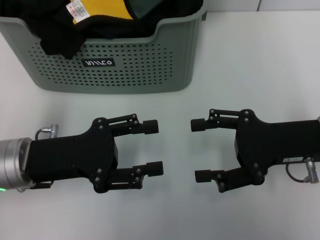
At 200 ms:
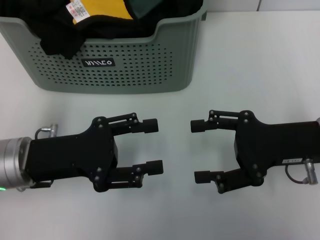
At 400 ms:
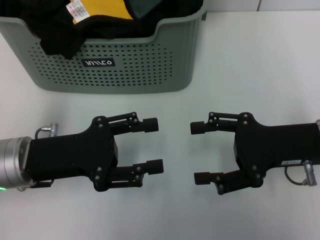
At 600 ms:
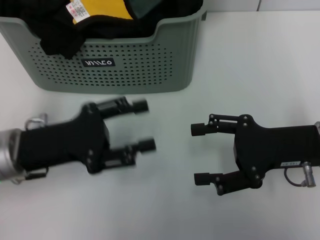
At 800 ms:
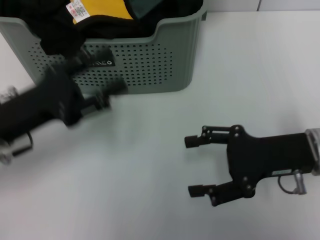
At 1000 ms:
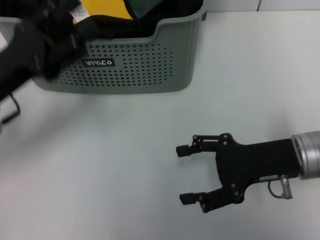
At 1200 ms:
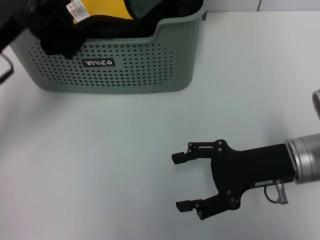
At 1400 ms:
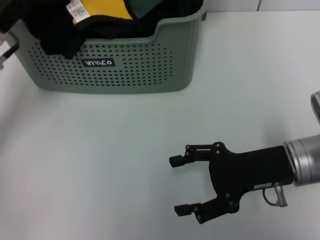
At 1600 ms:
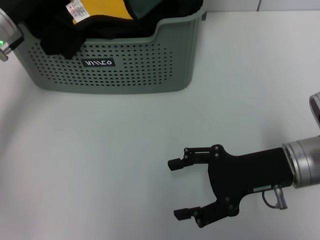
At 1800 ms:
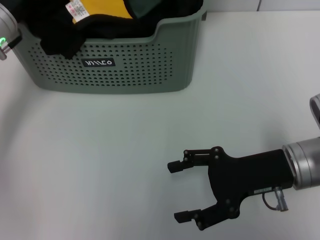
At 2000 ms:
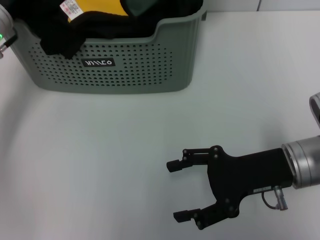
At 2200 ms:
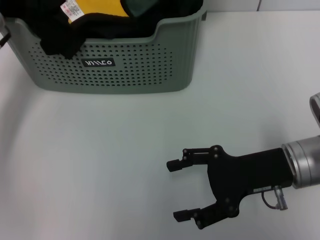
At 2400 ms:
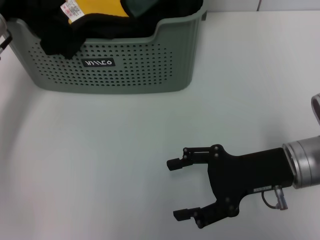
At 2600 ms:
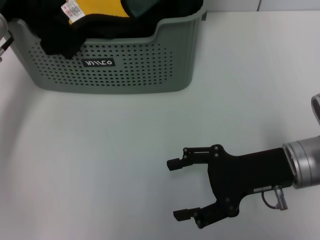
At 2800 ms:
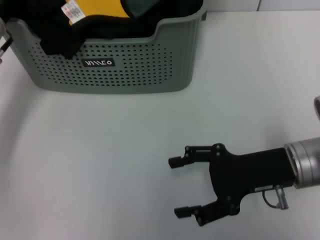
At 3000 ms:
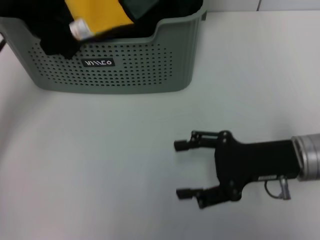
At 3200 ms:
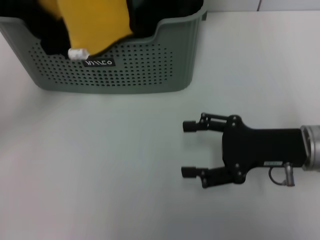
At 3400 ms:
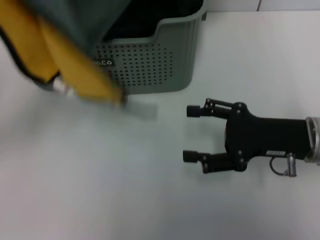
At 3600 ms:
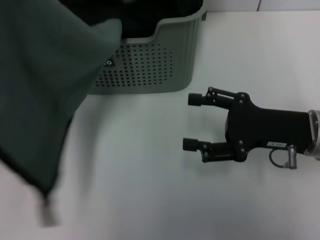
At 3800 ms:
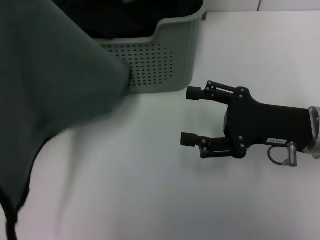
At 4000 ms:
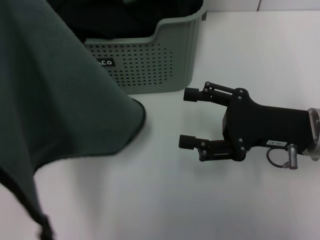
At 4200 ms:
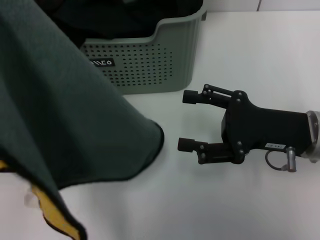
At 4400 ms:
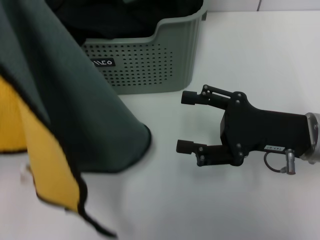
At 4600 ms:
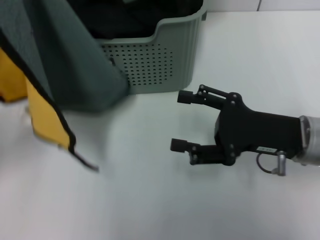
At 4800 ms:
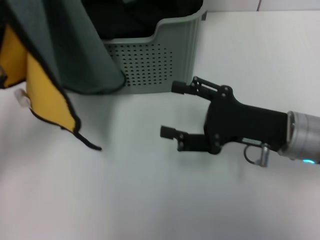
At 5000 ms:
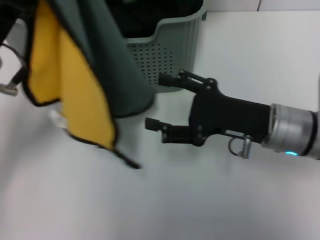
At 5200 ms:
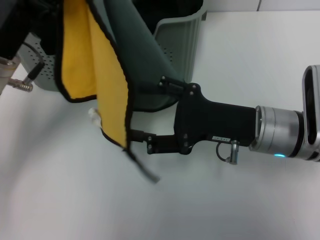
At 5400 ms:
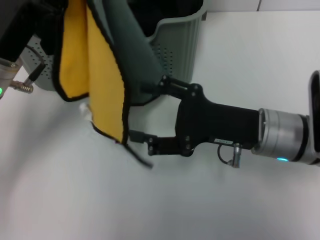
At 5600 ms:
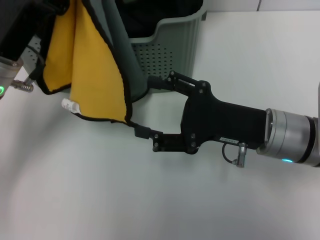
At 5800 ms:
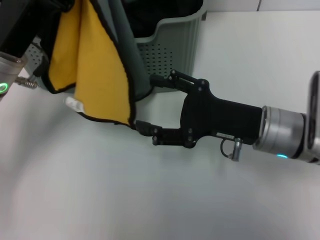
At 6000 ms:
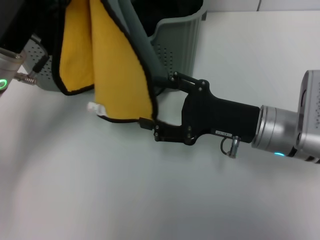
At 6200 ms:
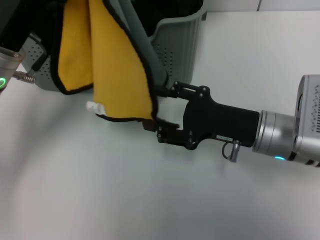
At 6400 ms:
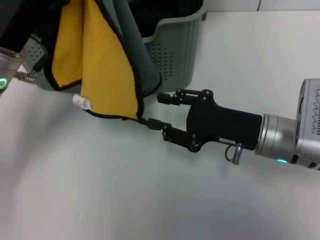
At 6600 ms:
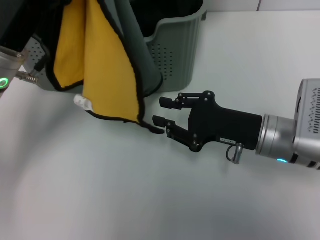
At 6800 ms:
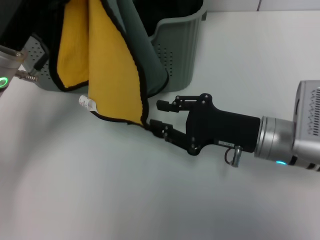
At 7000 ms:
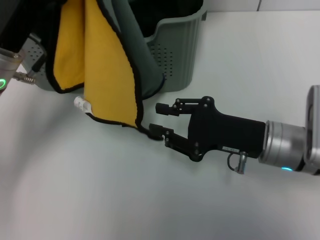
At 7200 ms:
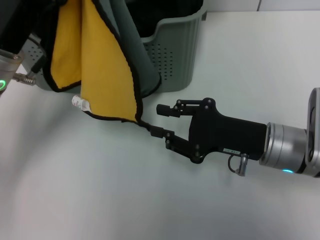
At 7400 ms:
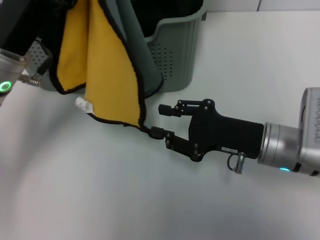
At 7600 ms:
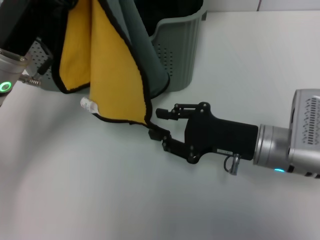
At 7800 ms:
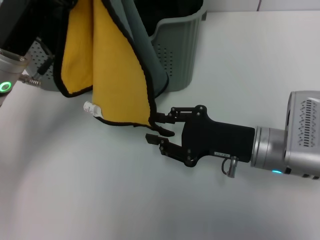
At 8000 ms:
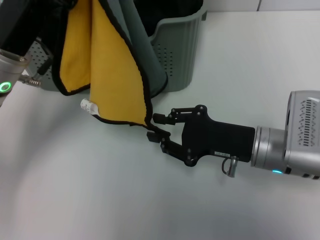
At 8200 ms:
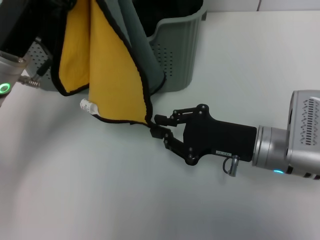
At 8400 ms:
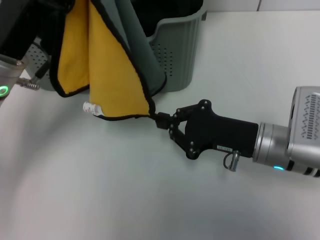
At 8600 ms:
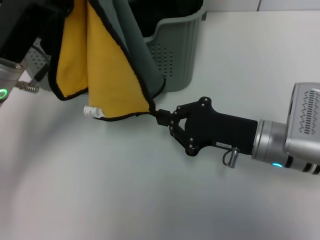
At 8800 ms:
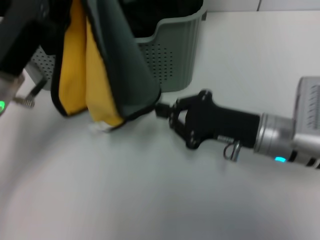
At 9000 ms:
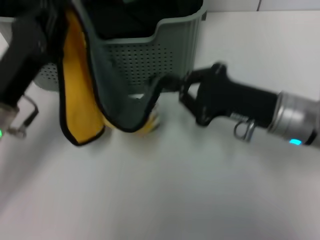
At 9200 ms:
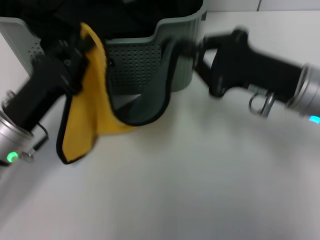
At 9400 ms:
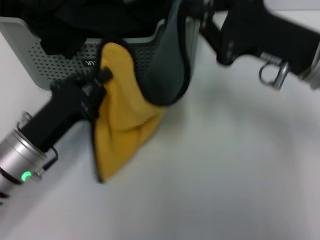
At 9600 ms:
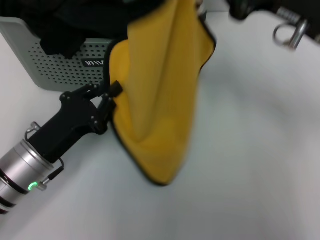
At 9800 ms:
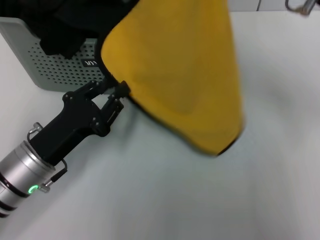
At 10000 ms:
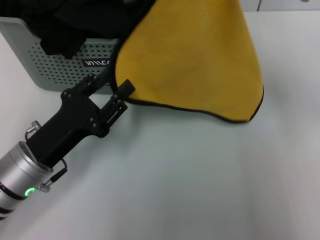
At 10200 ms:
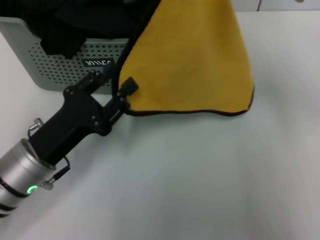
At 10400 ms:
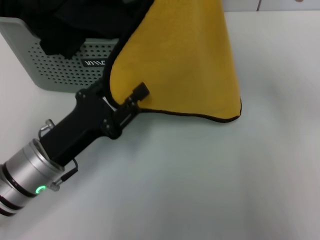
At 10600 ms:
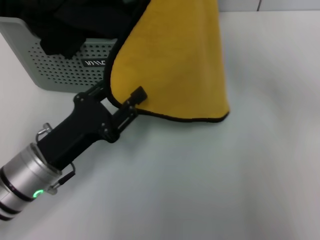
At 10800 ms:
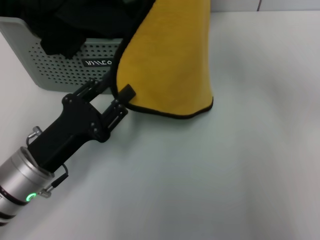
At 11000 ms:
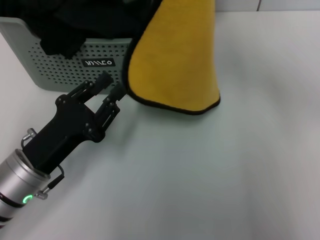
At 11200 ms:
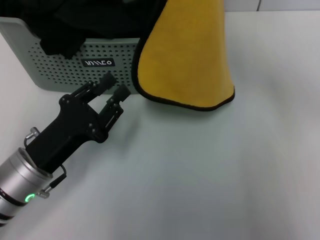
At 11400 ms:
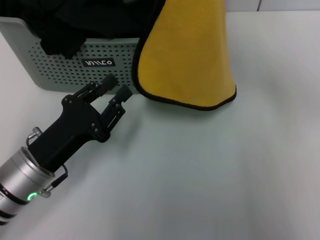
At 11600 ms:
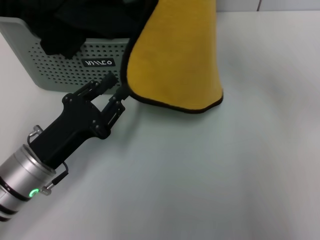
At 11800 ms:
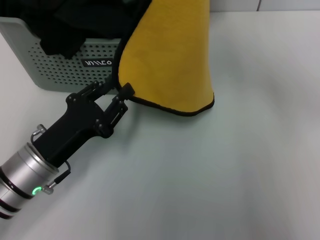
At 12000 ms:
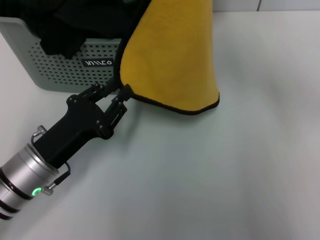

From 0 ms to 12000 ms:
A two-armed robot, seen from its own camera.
Task of the whole recording: pick up the towel from the storage box and lay it flat on the table.
Step, from 0 ms to 1800 ms: Pick up a towel with the left gripper.
Step, from 2200 ms to 8400 ms: Spread the towel flat with the left gripper.
From 0 ms to 1600 ms: The left gripper is displaced forward by about 15 cm.
From 1600 ms to 3000 ms: The left gripper closes up.
From 3000 ms to 4400 ms: The left gripper is displaced backward by about 10 cm.
From 4400 ms to 6000 ms: The right gripper moves approximately 5 cm; the left gripper heads to the right and forward, covering about 10 cm.
From 6000 ms to 7600 ms: The right gripper closes up.
From 7600 ms to 9000 ms: The left gripper ends up approximately 5 cm from where it was; the right gripper closes.
From 9000 ms to 10400 ms: The left gripper travels downward by approximately 5 cm, and opens, while the right gripper shifts some 15 cm upward.
From 10400 ms to 12000 ms: The grippers move only a little.

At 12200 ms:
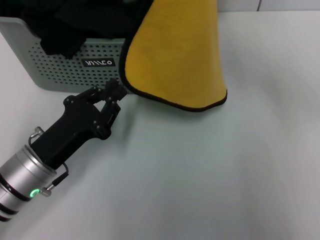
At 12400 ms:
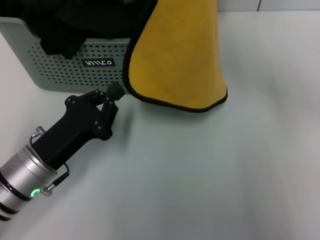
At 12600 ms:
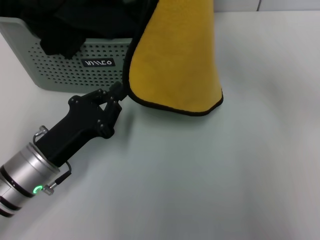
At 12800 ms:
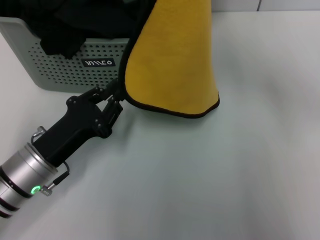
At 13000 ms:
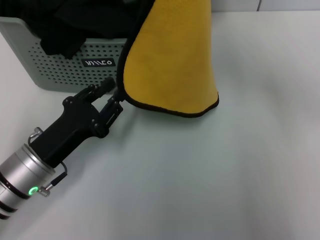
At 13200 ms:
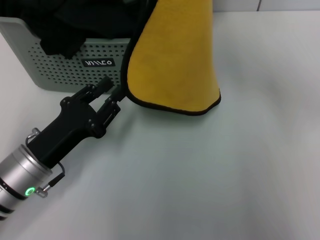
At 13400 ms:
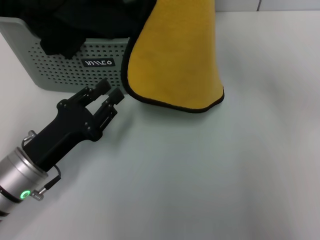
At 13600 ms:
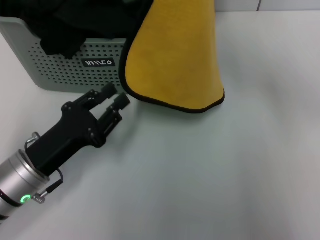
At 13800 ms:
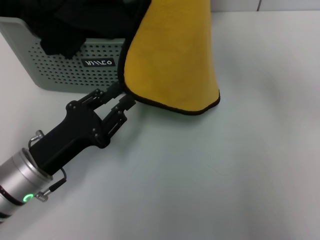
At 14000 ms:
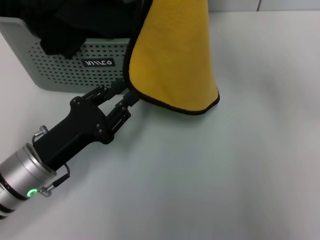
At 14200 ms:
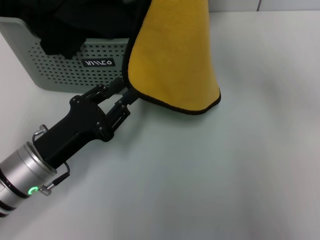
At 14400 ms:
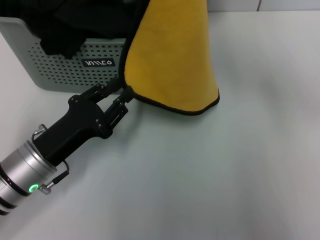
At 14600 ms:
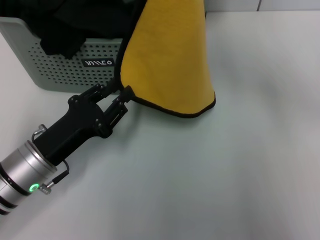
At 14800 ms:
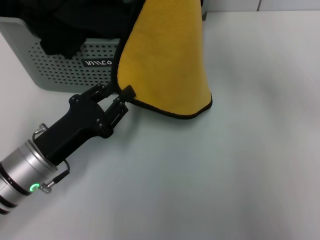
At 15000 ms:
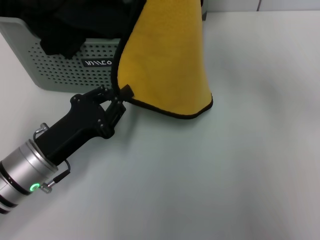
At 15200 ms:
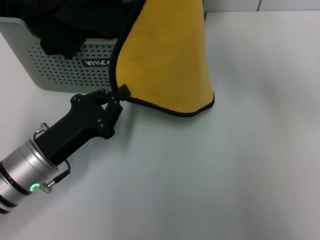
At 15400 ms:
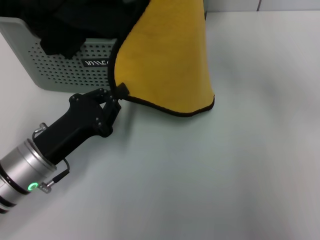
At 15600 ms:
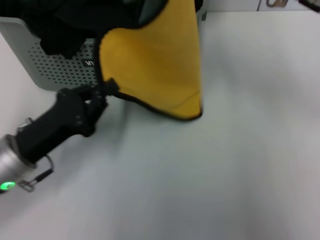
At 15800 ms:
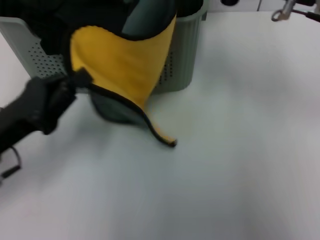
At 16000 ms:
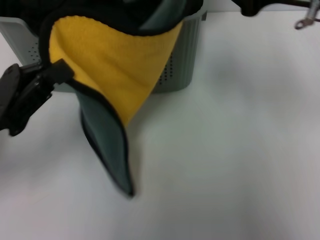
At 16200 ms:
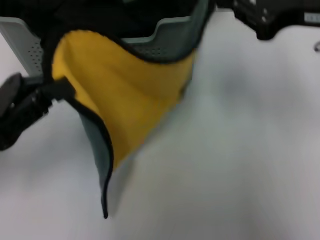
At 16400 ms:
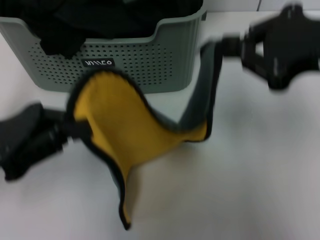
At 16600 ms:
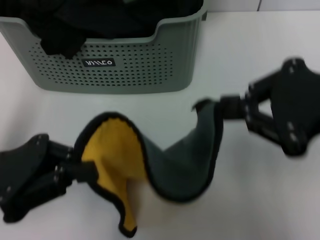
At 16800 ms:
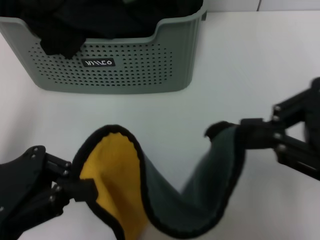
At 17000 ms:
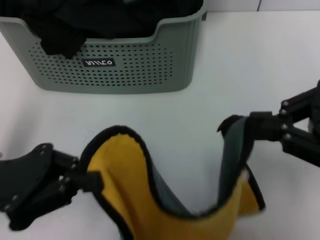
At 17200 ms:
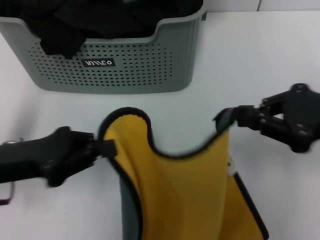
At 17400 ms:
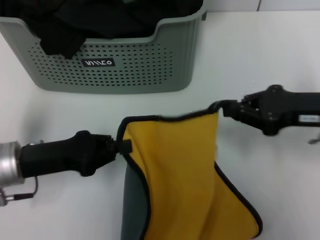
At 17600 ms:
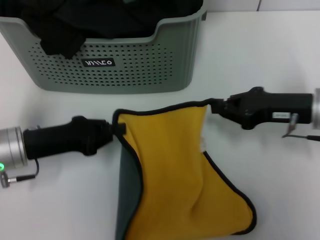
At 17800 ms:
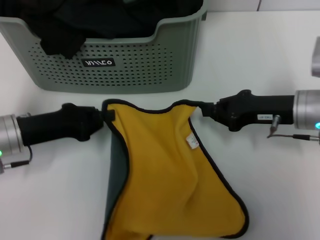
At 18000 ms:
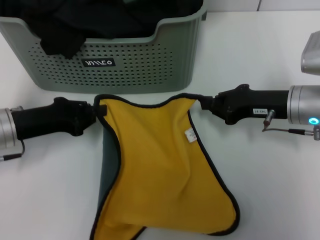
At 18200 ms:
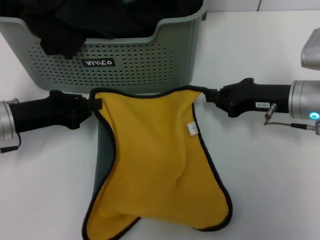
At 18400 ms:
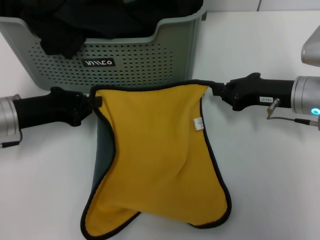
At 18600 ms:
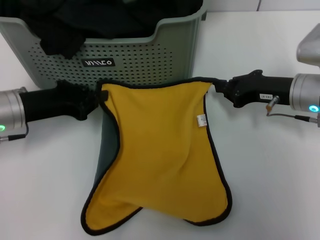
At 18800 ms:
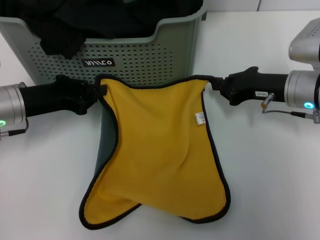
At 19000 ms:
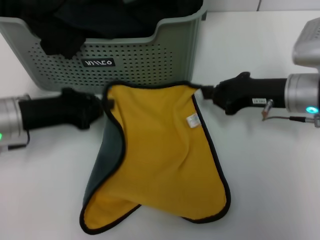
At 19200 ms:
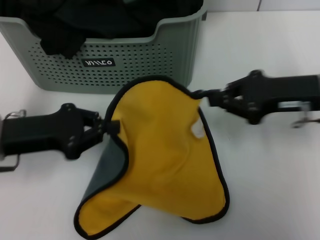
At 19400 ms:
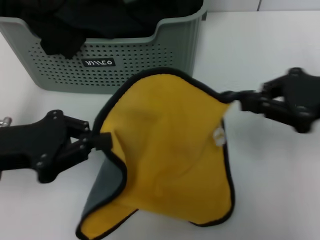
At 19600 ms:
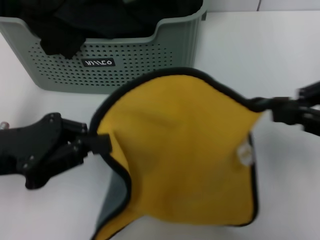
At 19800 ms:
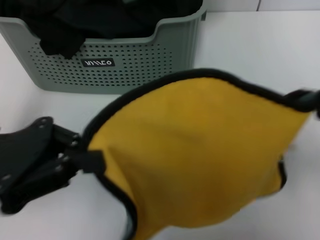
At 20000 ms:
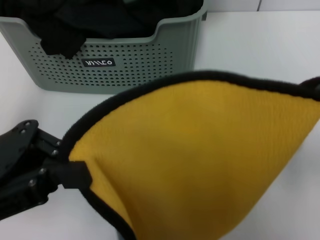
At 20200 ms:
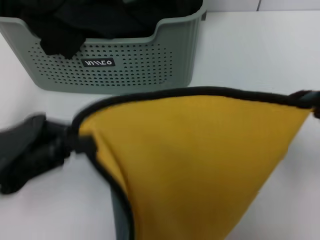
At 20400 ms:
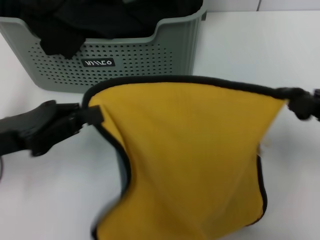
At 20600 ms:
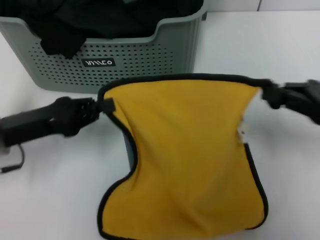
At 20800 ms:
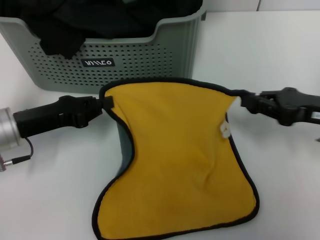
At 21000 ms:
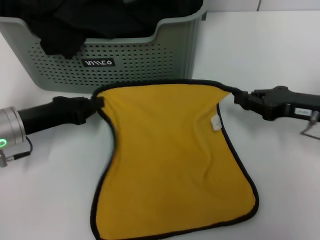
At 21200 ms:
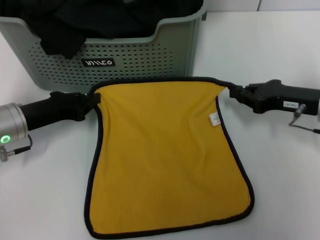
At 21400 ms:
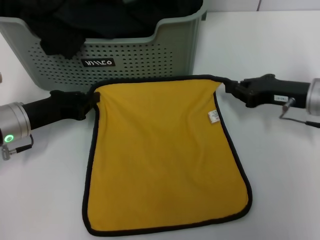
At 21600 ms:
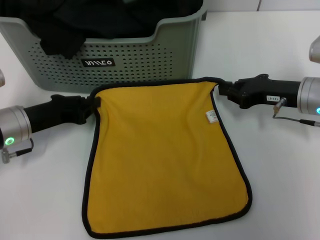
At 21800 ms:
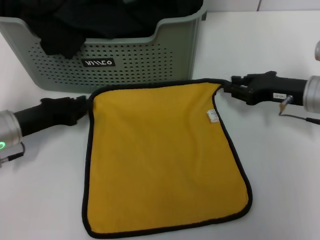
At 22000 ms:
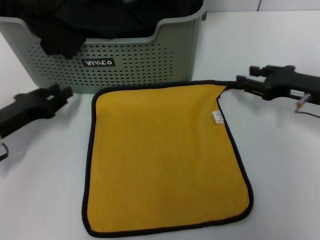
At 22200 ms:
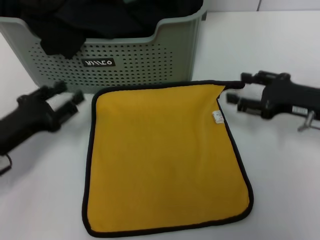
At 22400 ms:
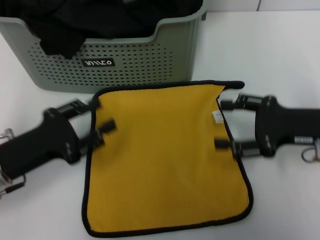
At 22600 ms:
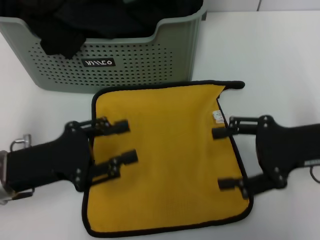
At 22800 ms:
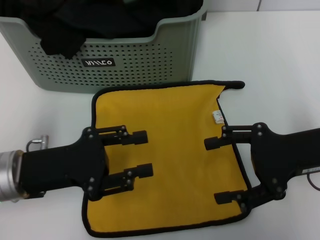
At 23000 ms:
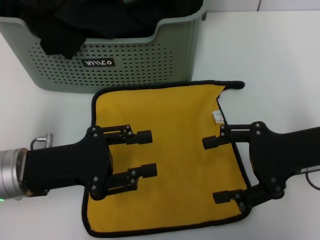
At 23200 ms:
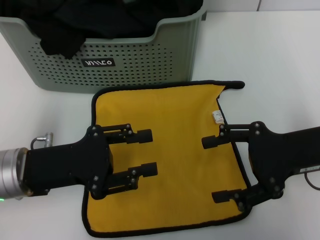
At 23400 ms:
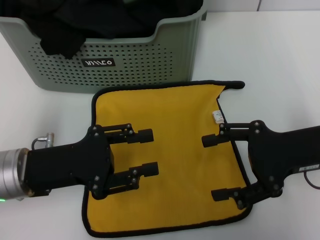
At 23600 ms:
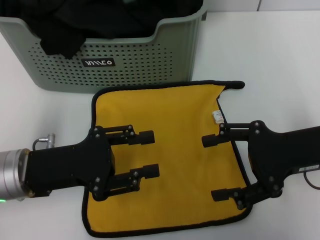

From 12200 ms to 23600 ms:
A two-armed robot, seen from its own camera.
Task of the whole recording: pick up the towel from the storage box and lay it flat on the table.
Step, from 12200 ms to 21800 ms: Spread the towel flat with the right gripper.
From 12200 ms to 13600 ms: The left gripper closes, then opens again.
From 13600 ms to 15000 ms: The grippers stay close to where they were, moving slightly.
From 15000 ms to 16400 ms: The left gripper heads upward and to the left, covering roughly 10 cm, and closes its fingers, while the right gripper is displaced backward by some 5 cm.
From 16400 ms to 17800 ms: The left gripper is displaced downward and forward by approximately 10 cm; the right gripper goes some 20 cm downward and forward.
From 17800 ms to 19400 ms: The right gripper goes some 10 cm upward and backward. Meanwhile the left gripper goes approximately 5 cm upward.
From 19400 ms to 20800 ms: The right gripper shifts approximately 10 cm downward. The left gripper heads downward, covering roughly 5 cm.
From 20800 ms to 22200 ms: The left gripper moves some 5 cm, and opens.
From 22200 ms to 23600 ms: The left gripper shifts approximately 5 cm to the right. Meanwhile the right gripper travels backward by roughly 5 cm, and opens.
